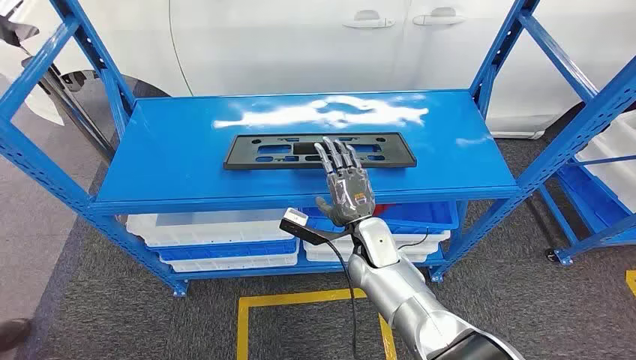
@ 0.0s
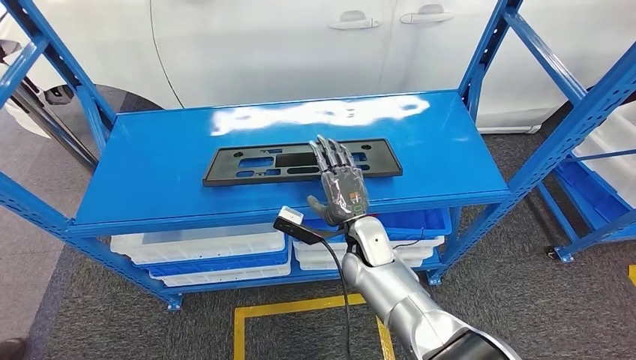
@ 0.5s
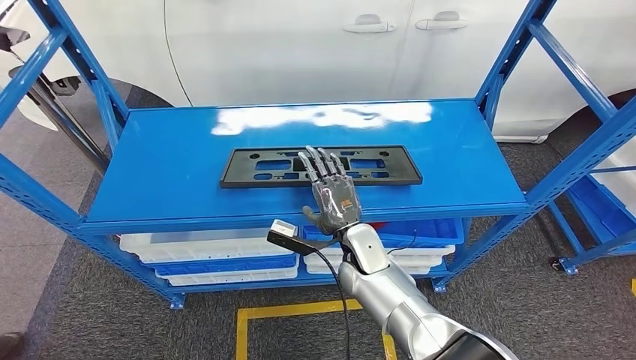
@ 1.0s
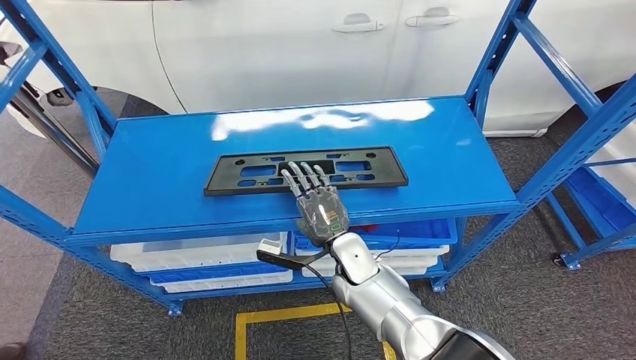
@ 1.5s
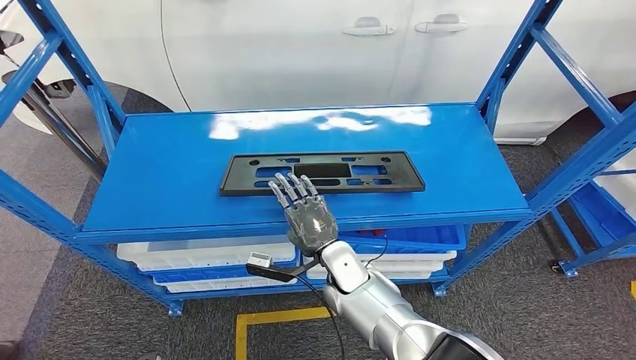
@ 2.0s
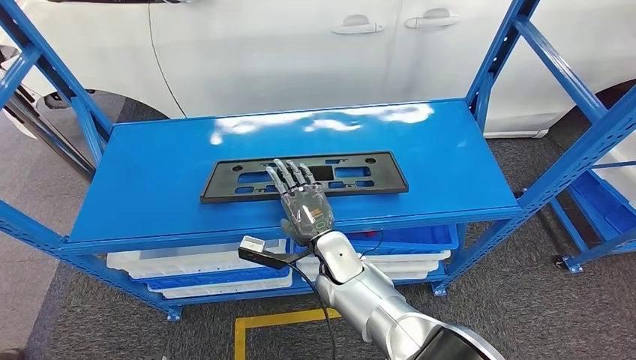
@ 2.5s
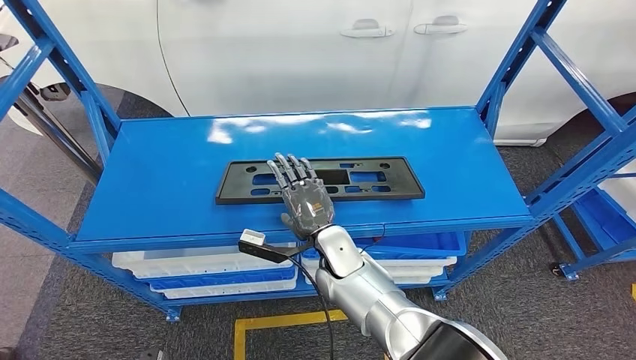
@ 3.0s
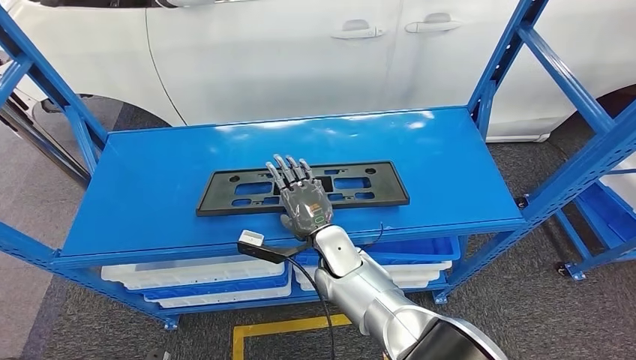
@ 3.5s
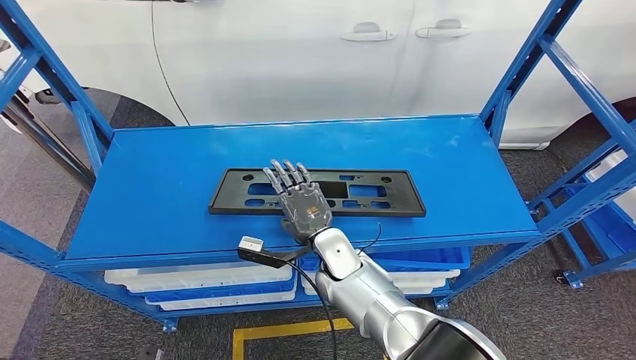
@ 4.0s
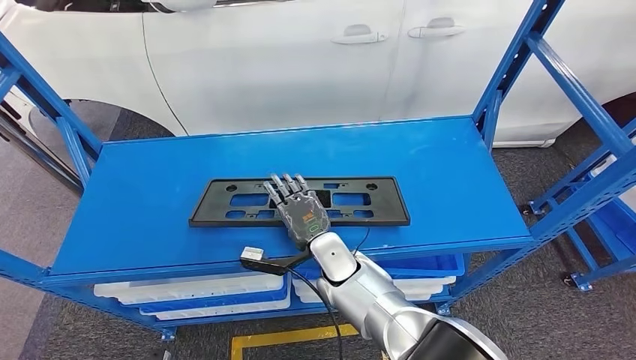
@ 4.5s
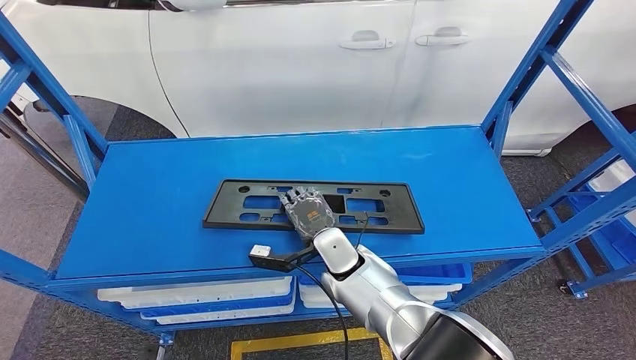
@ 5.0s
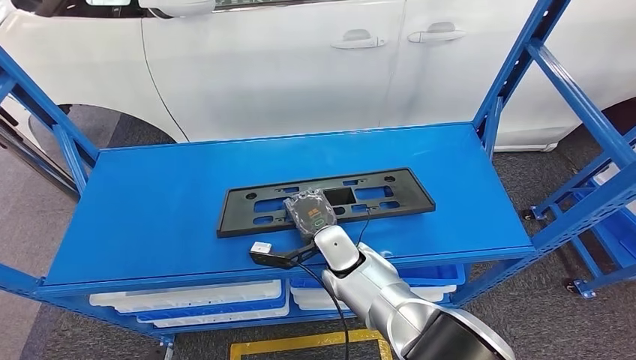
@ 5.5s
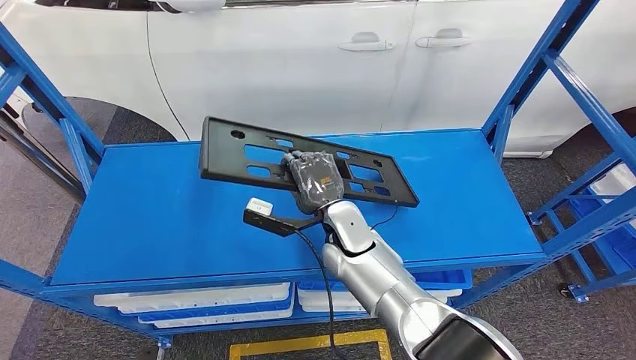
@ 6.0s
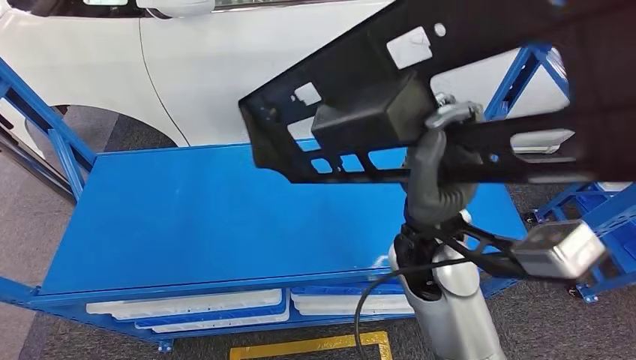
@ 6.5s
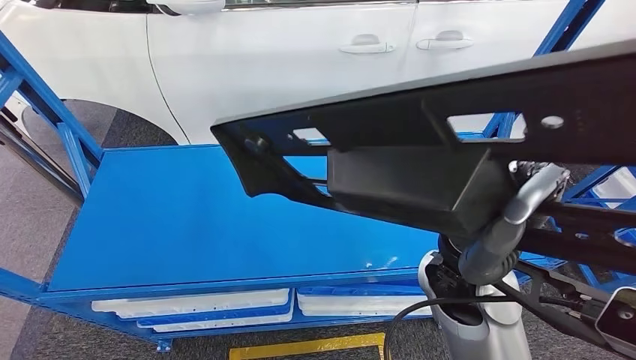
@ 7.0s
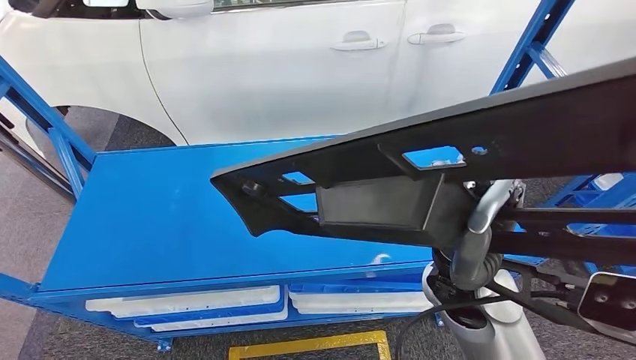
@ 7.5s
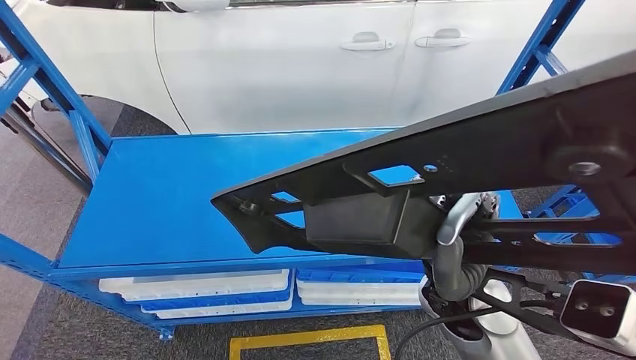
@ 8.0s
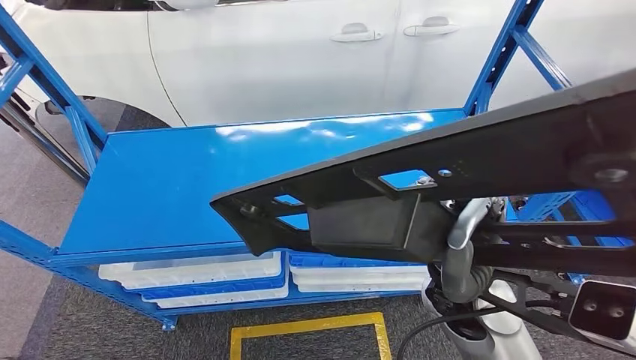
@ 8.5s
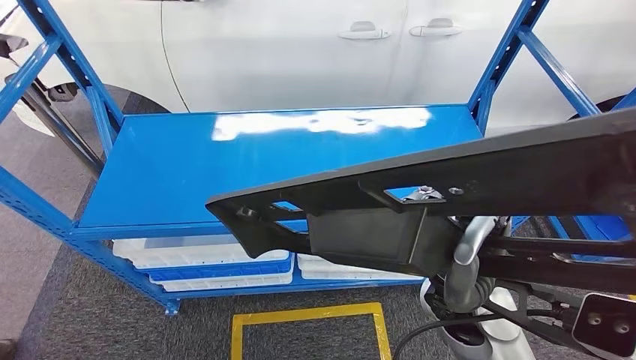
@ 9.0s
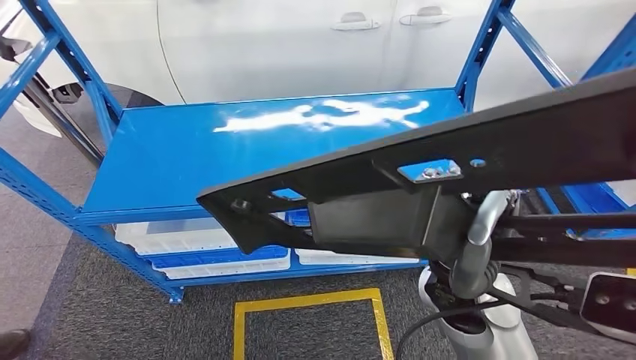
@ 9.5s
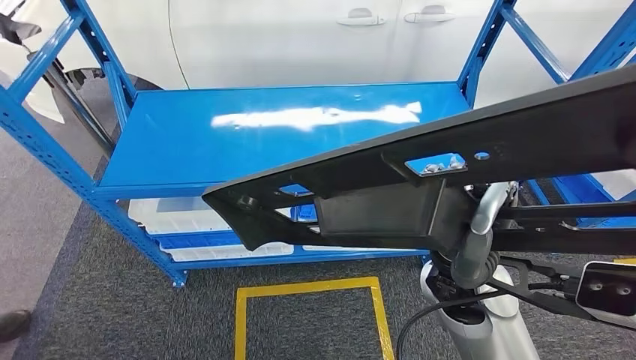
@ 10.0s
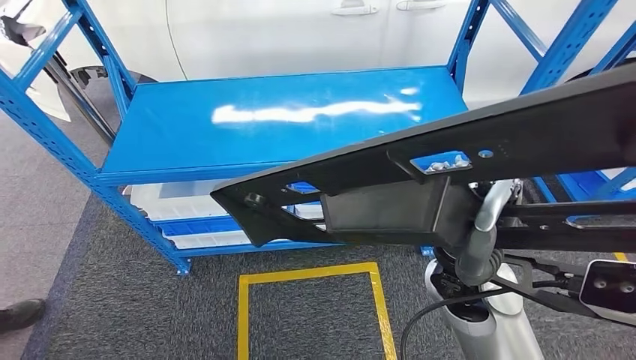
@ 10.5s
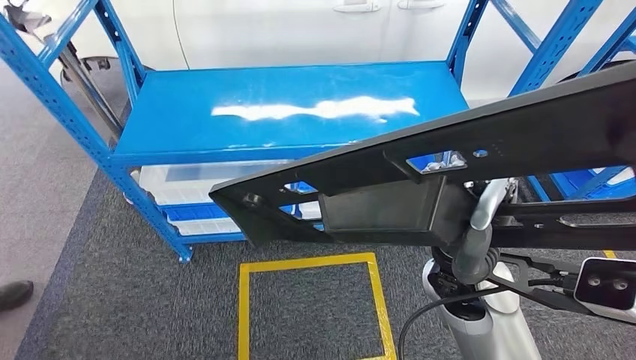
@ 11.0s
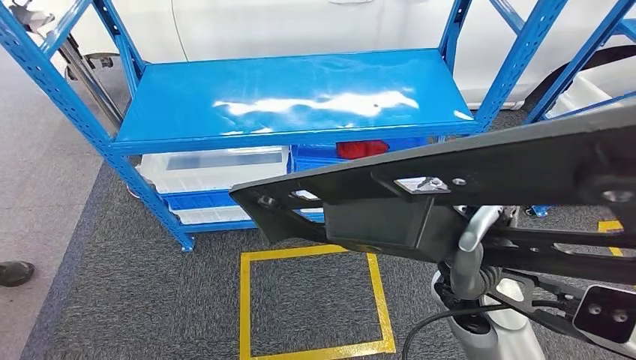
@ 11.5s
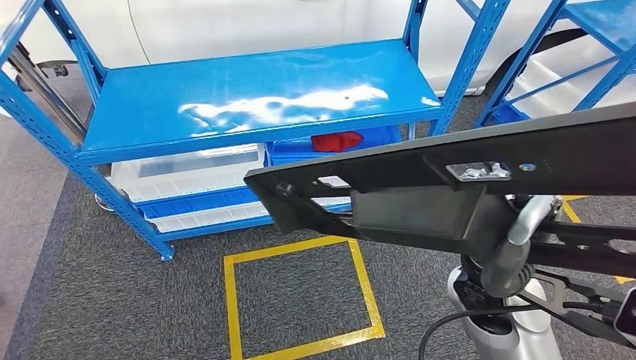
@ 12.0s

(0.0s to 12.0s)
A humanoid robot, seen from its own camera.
Step, 0.0s - 7.5s: Pick up the large material from the shelf.

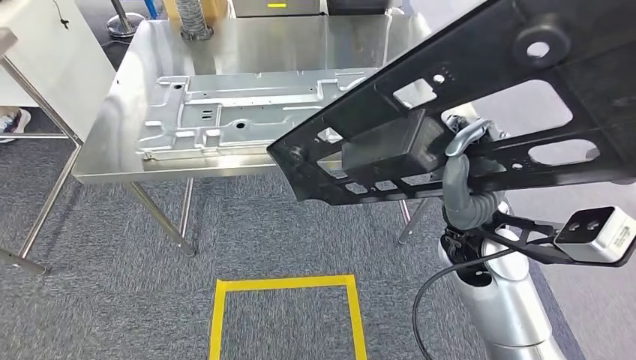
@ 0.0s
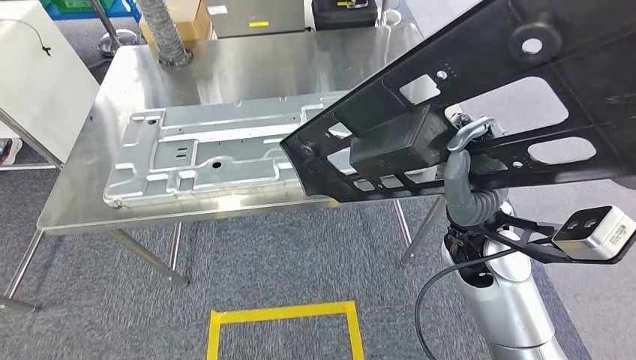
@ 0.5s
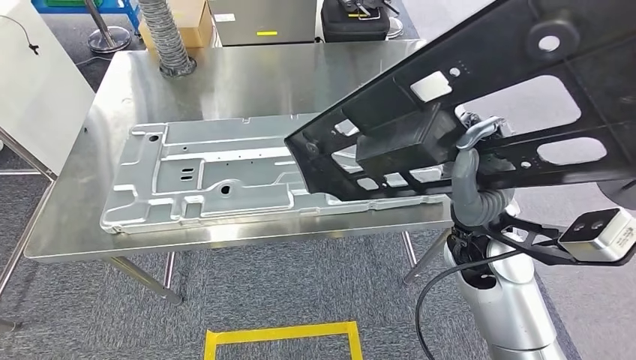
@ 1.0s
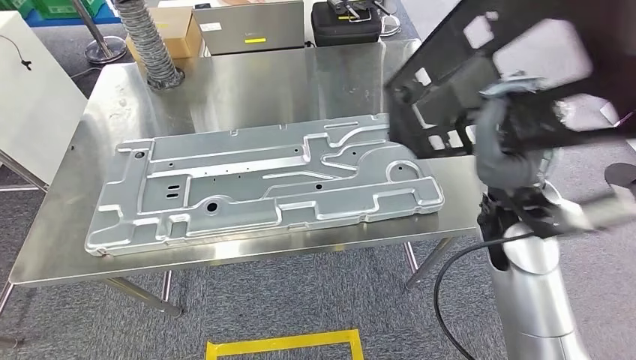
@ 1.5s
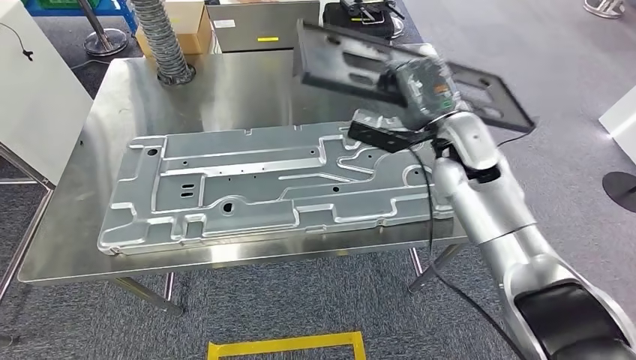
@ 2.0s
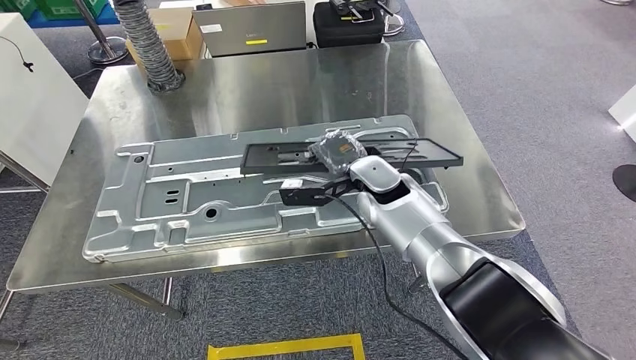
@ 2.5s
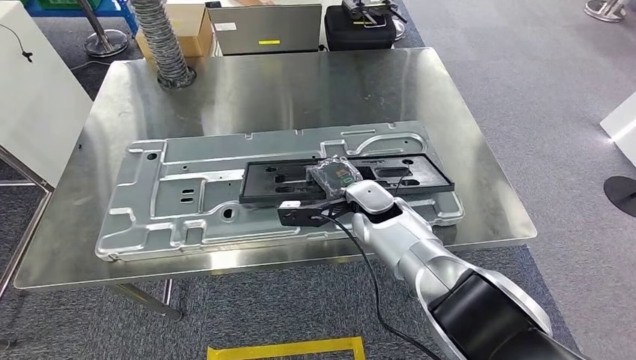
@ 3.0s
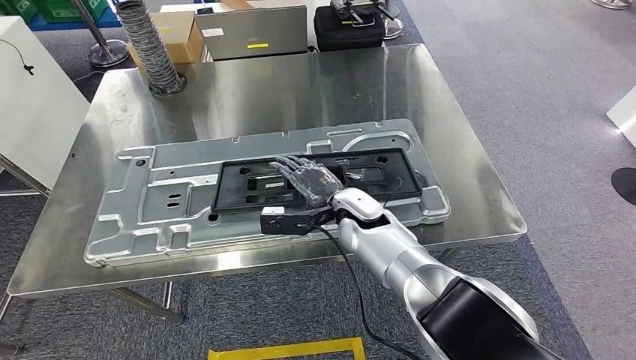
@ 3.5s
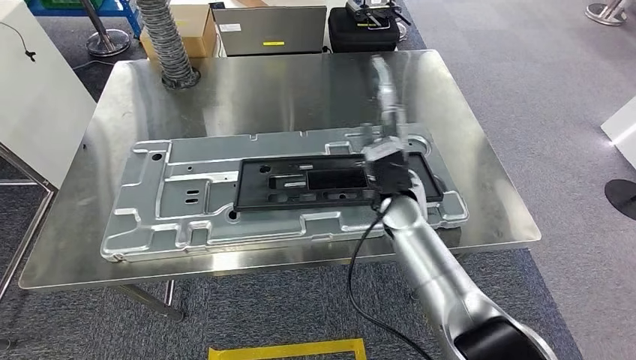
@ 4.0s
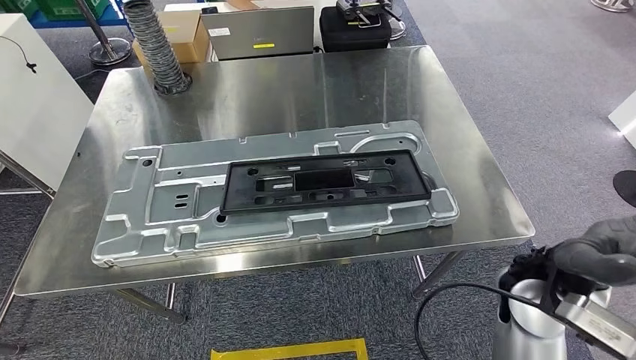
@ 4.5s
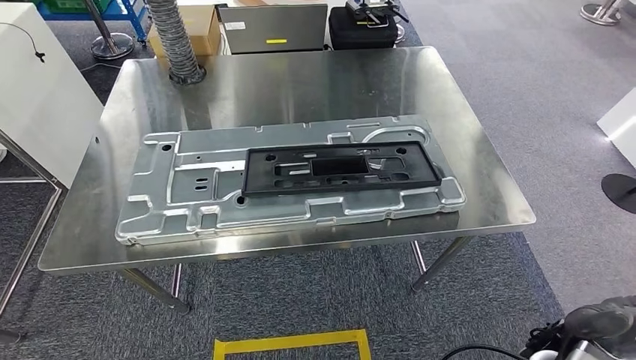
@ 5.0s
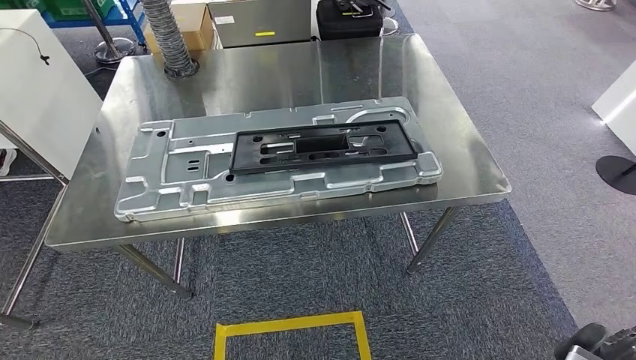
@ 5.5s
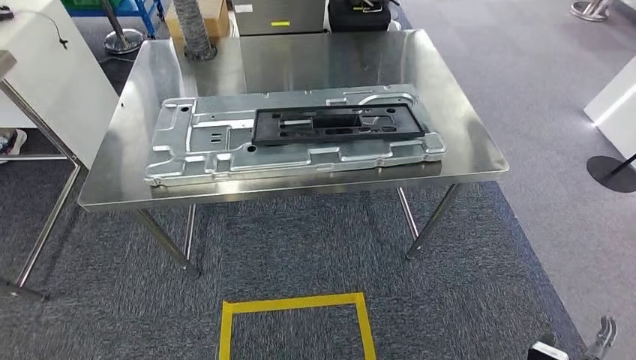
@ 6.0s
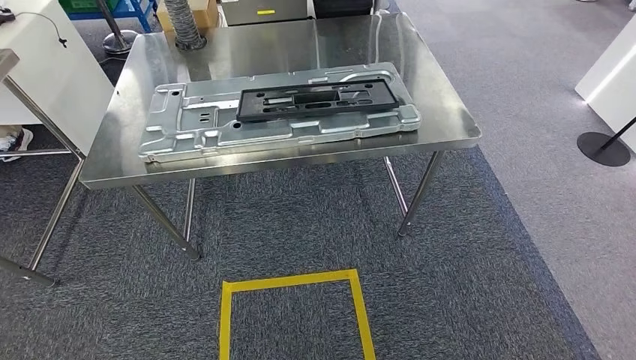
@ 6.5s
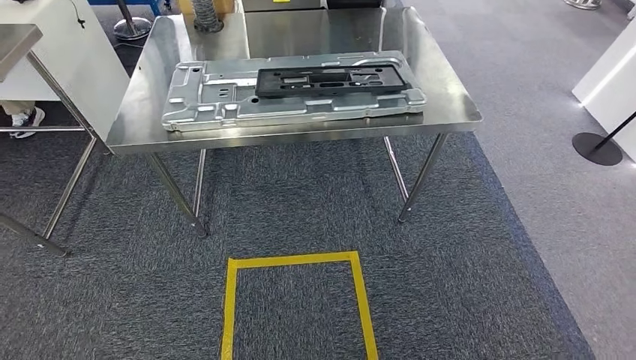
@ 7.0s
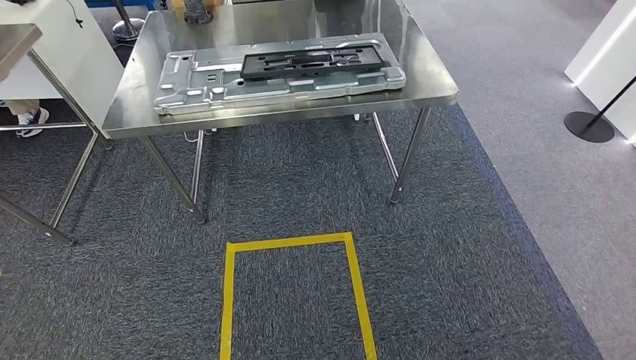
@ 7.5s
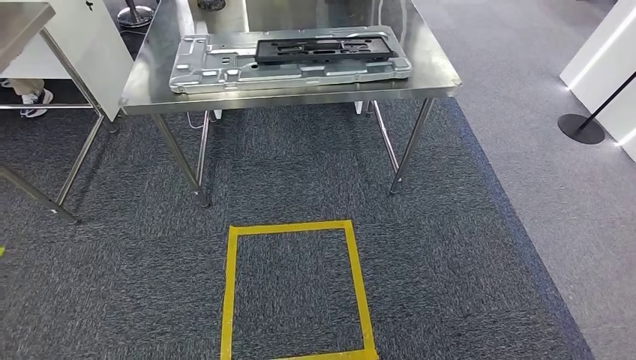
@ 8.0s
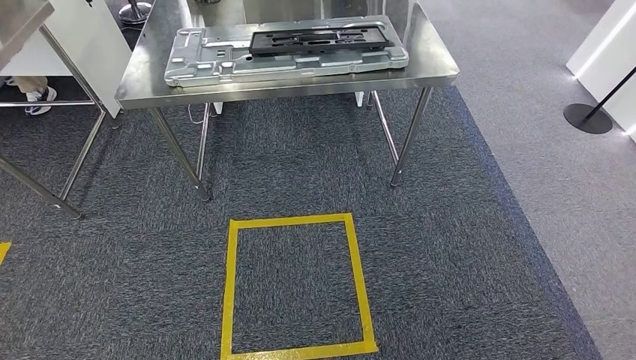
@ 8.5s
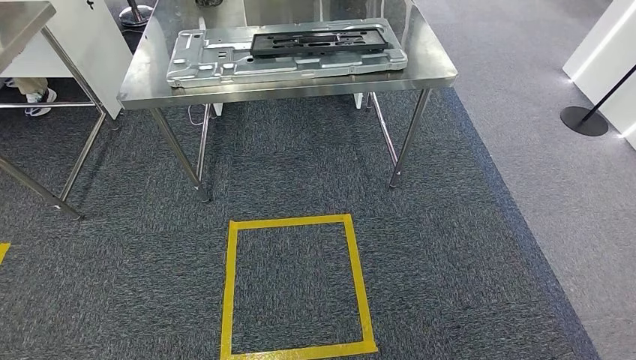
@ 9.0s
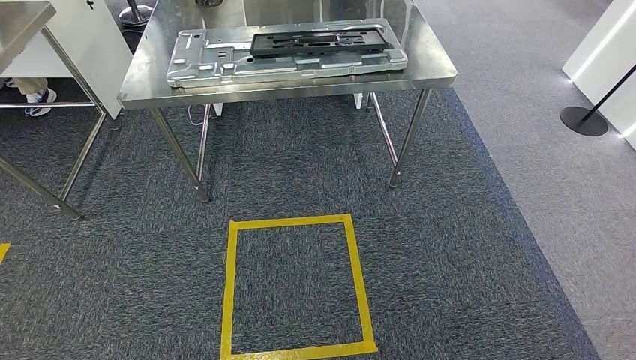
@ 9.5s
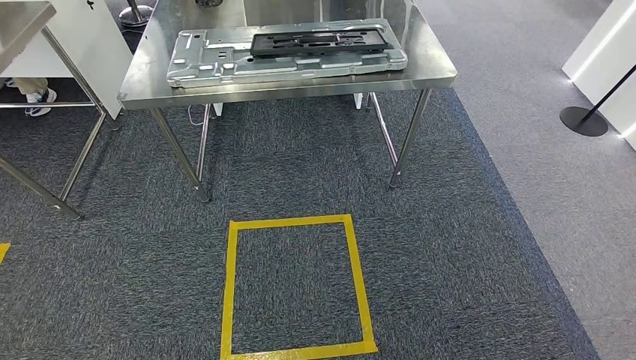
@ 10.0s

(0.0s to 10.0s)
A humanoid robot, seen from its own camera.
Step, 1.5s - 5.5s: Insert the large material into the corresponding hole on the workbench.
Step, 6.0s - 10.0s: Move to the initial position of the shelf.
